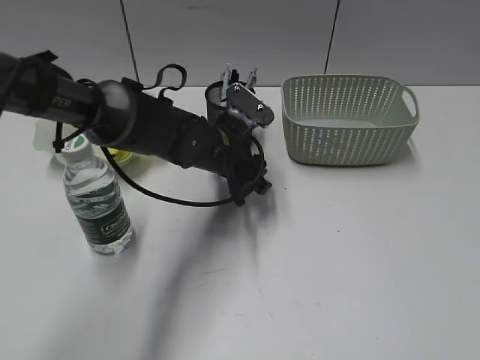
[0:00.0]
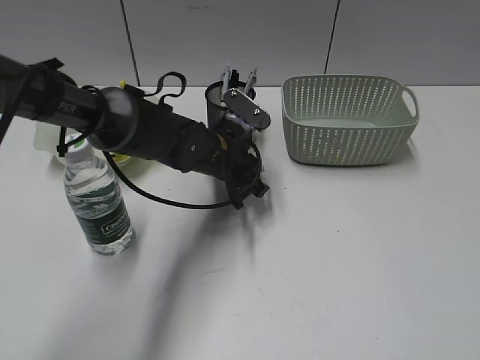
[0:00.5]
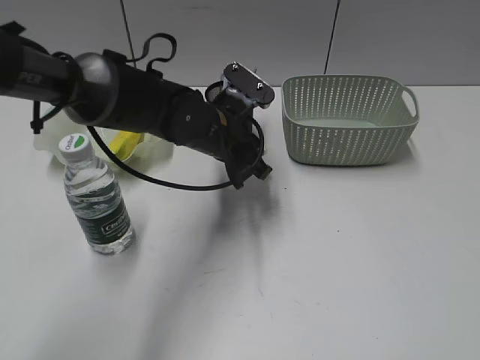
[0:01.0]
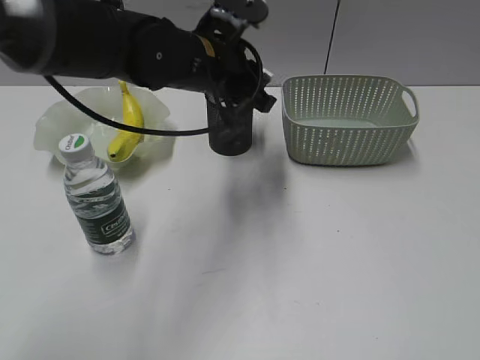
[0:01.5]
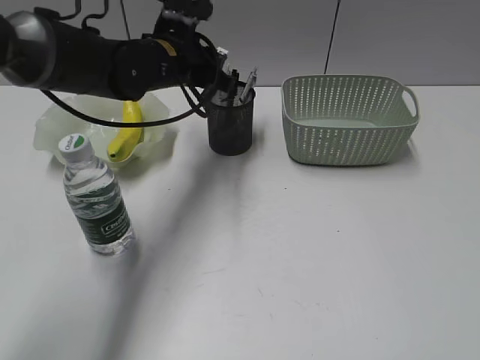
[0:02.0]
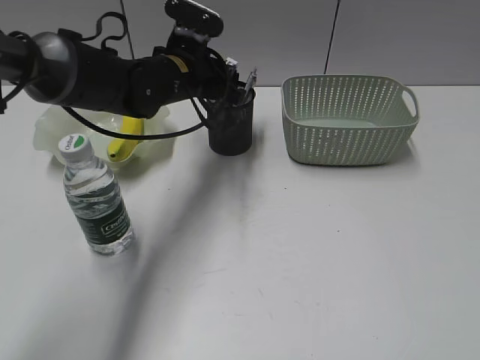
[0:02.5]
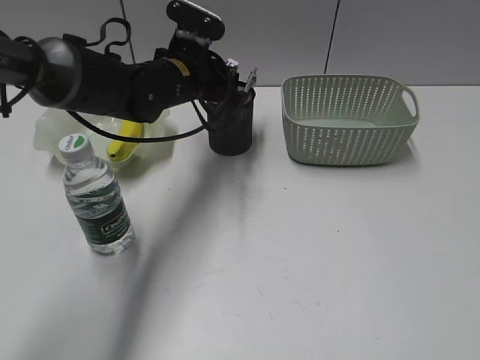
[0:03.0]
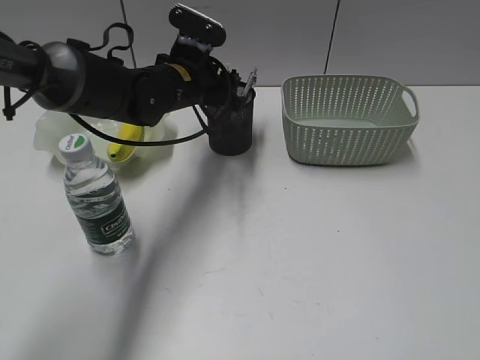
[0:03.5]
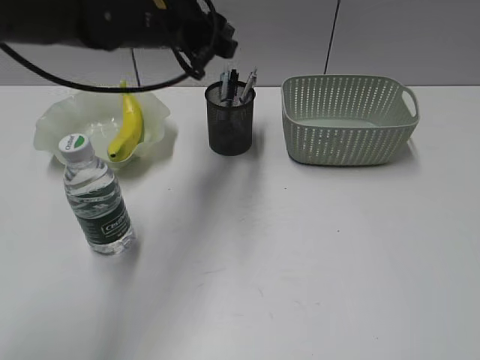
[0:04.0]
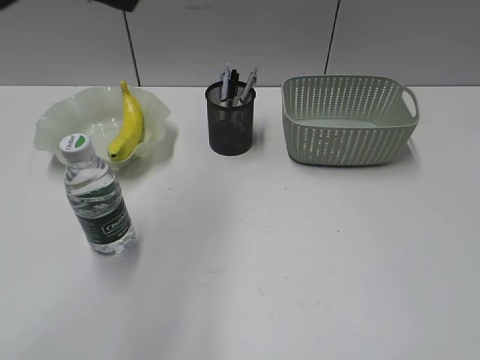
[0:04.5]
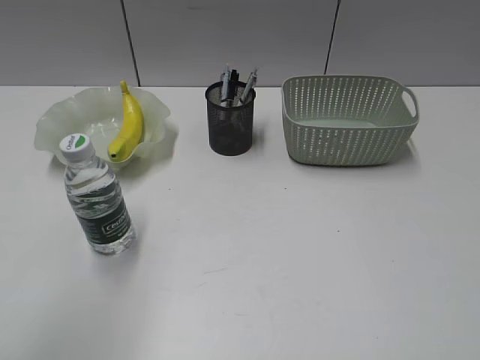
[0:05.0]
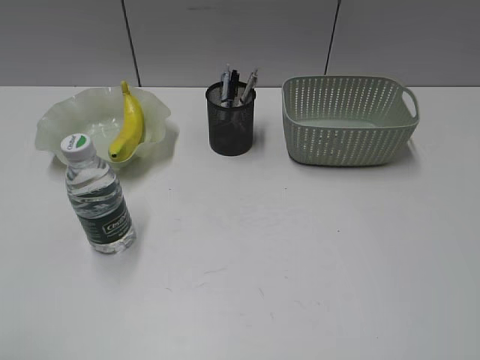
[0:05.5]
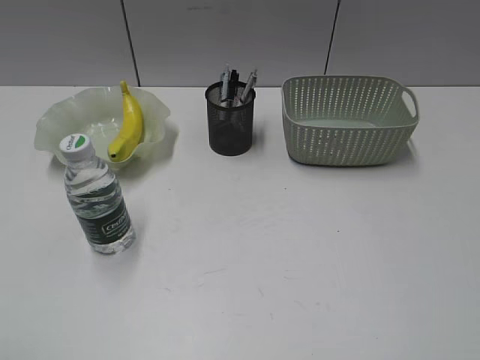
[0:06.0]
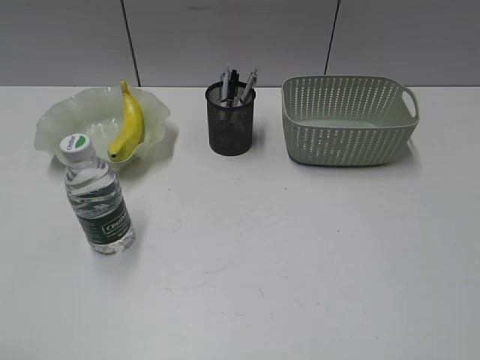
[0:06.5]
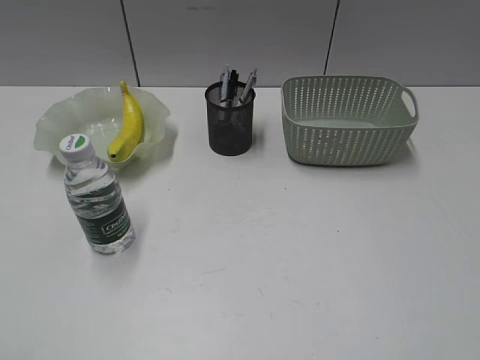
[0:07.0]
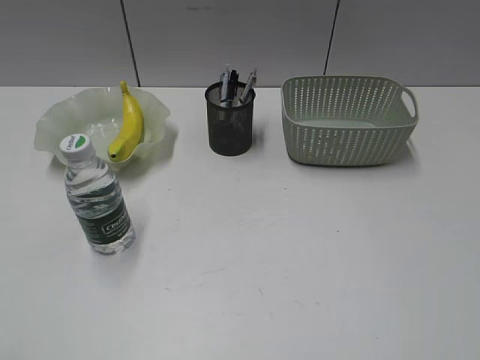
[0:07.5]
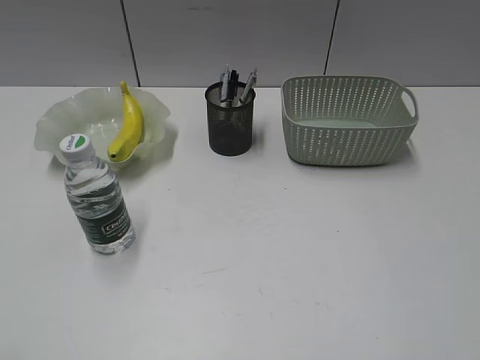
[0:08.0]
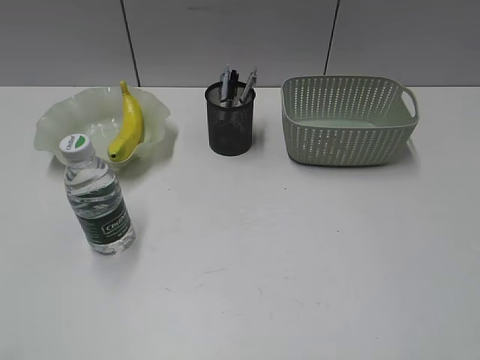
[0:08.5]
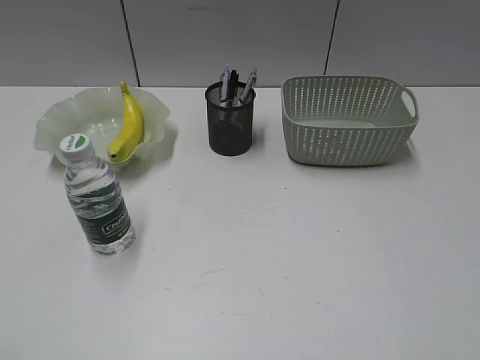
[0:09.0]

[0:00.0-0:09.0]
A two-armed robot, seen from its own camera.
Step, 0:01.0 to 0:03.5: Place the eraser in pen holder with left gripper.
0:00.0 to 0:02.0: The left gripper moves upward and to the left, some 10 cm, and closes up.
0:02.0 to 0:04.5: The left gripper goes roughly 25 cm upward and backward, and opens its fingers.
0:04.5 to 0:07.0: The left gripper goes approximately 35 cm backward, to the left and downward.
